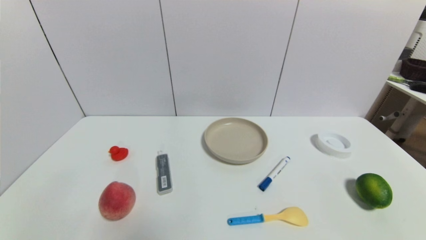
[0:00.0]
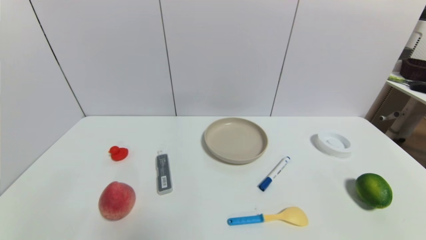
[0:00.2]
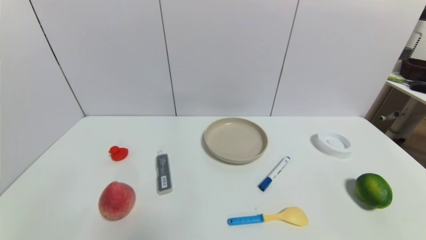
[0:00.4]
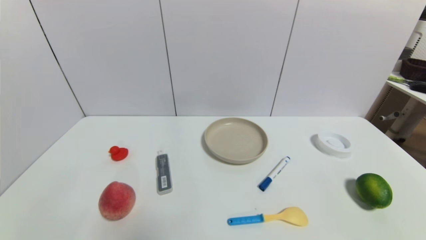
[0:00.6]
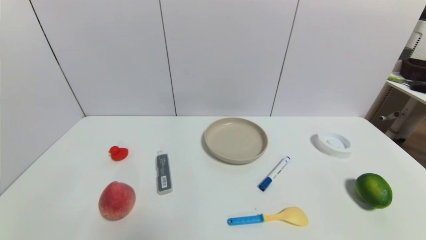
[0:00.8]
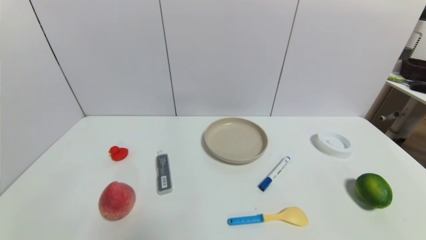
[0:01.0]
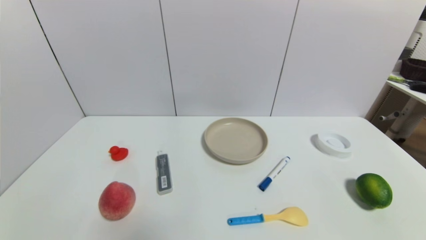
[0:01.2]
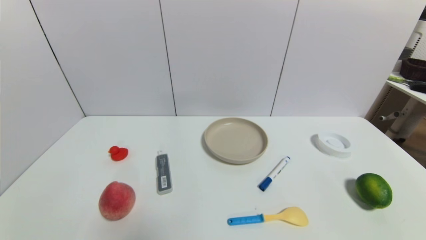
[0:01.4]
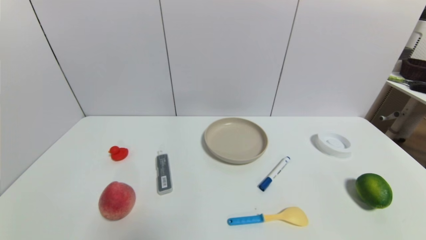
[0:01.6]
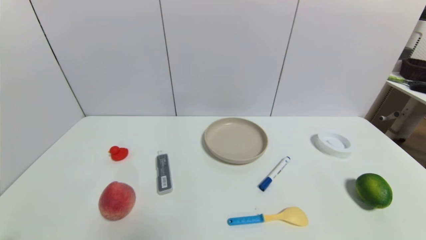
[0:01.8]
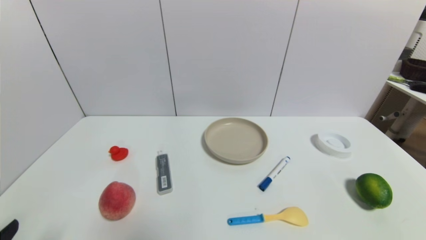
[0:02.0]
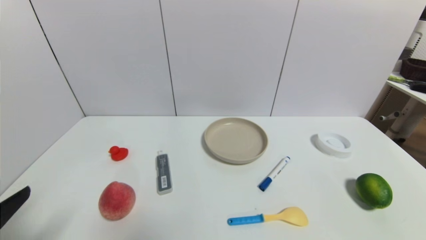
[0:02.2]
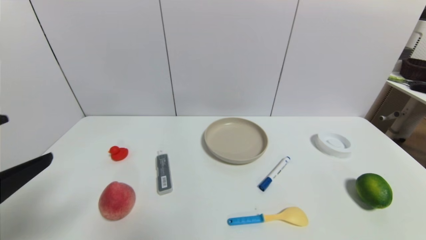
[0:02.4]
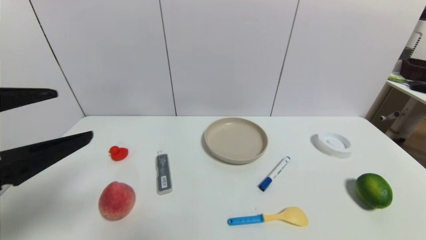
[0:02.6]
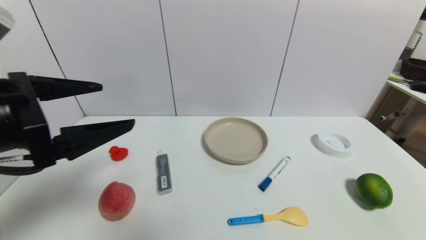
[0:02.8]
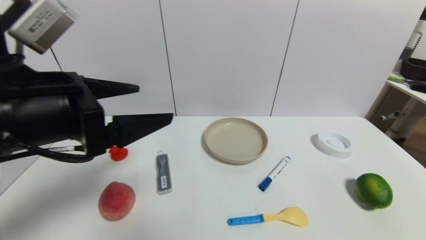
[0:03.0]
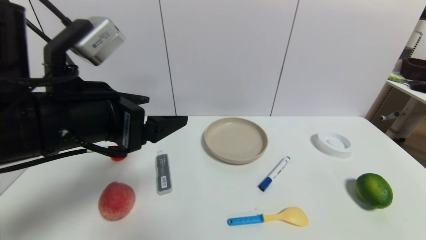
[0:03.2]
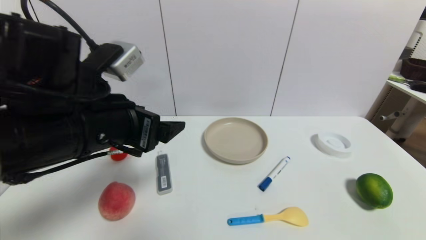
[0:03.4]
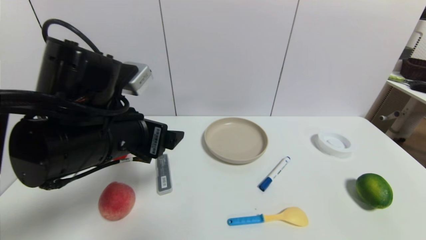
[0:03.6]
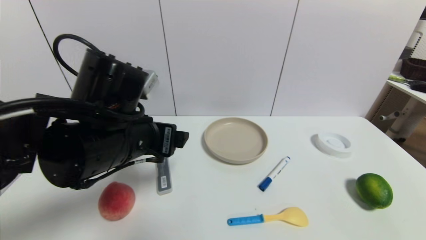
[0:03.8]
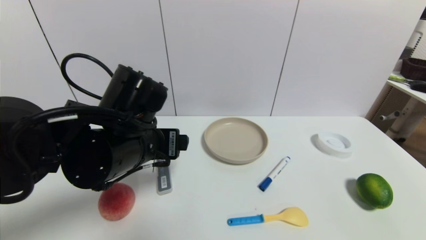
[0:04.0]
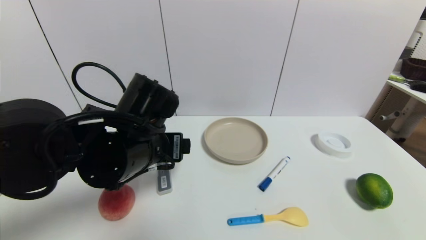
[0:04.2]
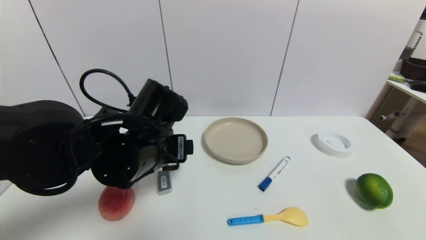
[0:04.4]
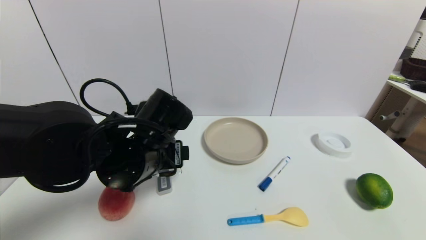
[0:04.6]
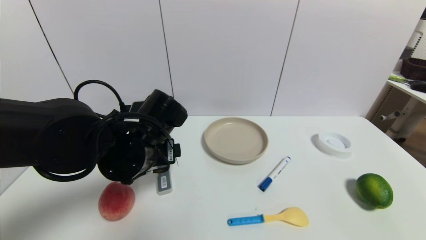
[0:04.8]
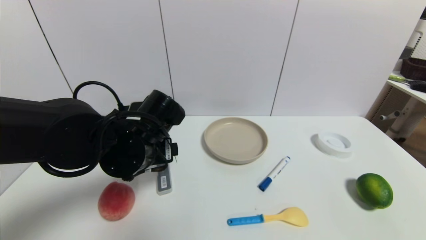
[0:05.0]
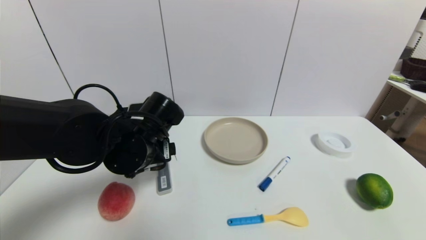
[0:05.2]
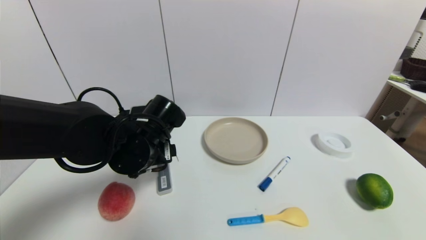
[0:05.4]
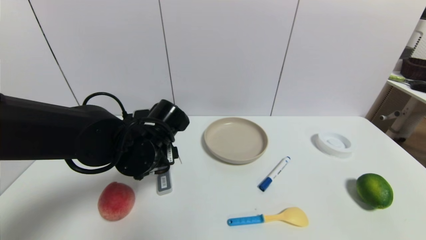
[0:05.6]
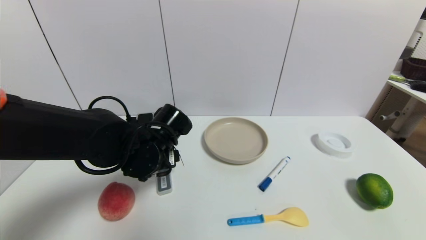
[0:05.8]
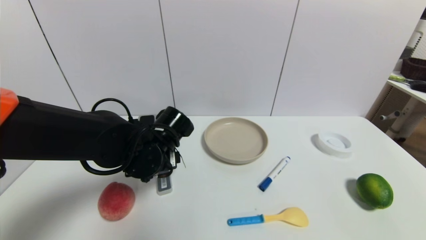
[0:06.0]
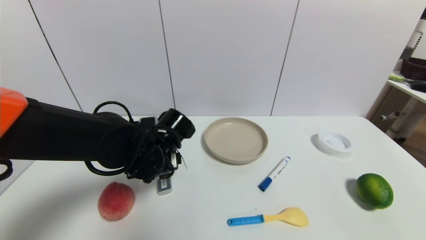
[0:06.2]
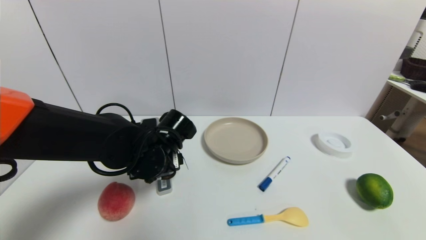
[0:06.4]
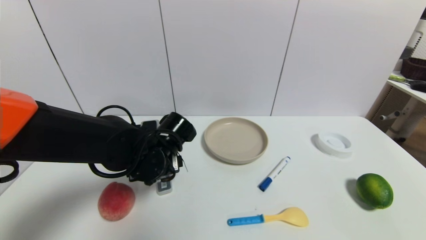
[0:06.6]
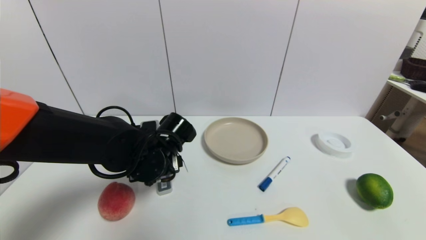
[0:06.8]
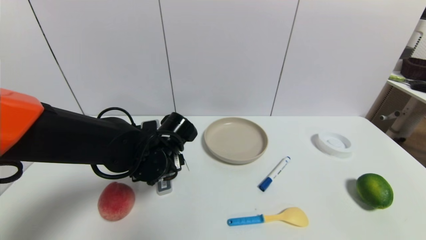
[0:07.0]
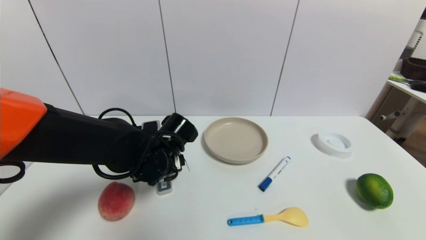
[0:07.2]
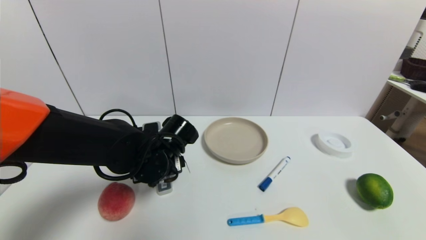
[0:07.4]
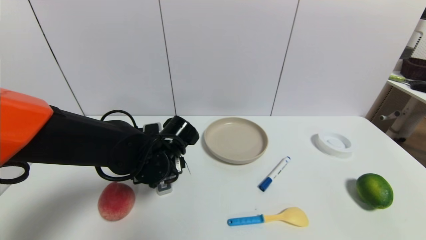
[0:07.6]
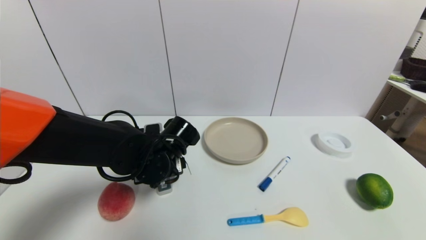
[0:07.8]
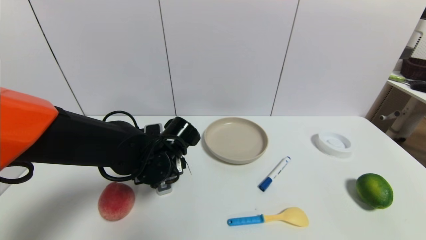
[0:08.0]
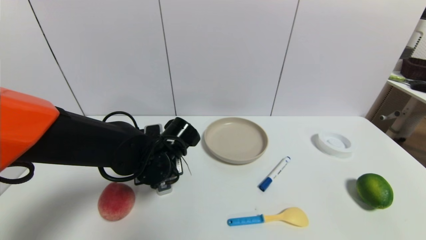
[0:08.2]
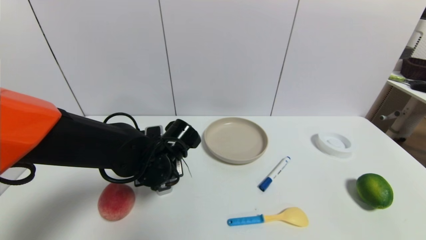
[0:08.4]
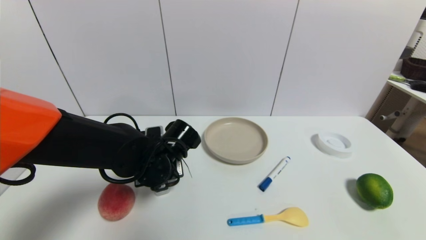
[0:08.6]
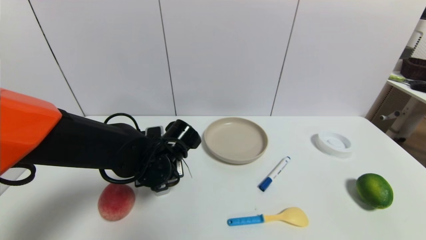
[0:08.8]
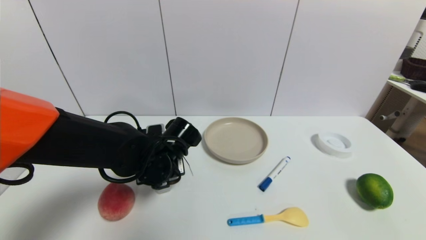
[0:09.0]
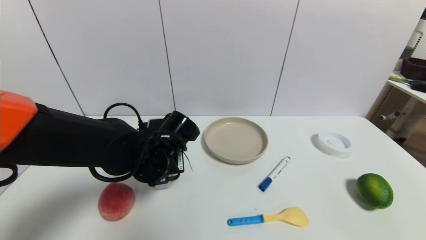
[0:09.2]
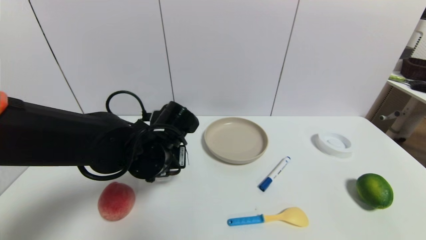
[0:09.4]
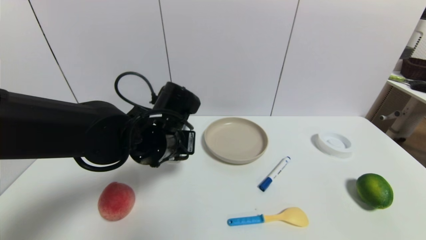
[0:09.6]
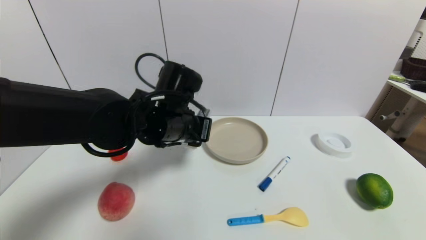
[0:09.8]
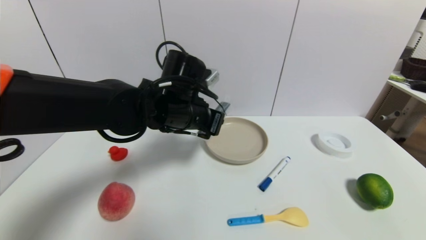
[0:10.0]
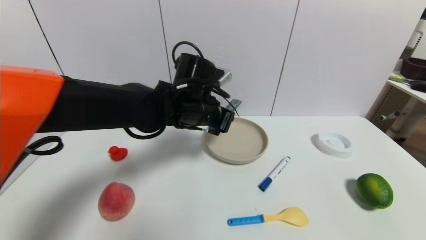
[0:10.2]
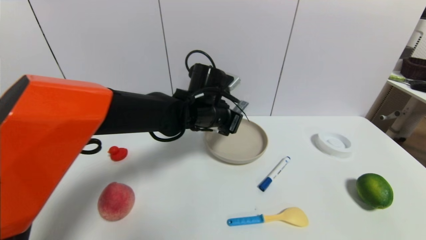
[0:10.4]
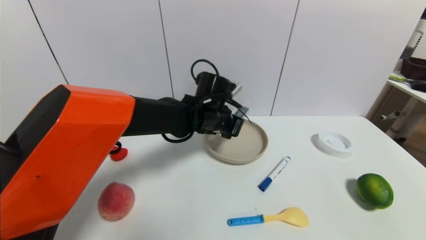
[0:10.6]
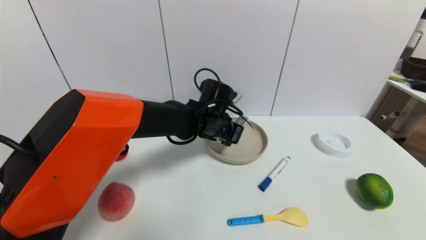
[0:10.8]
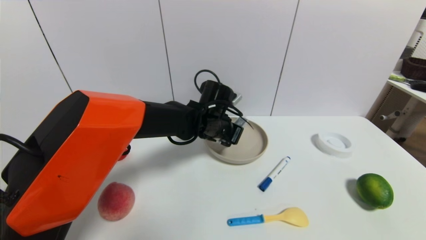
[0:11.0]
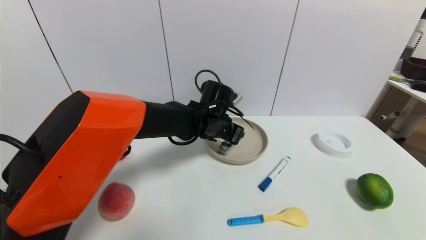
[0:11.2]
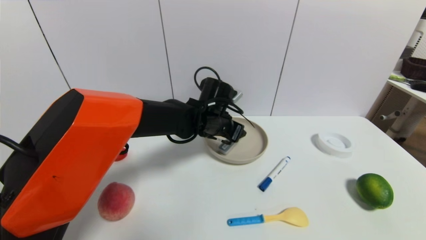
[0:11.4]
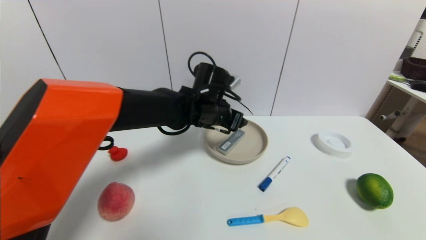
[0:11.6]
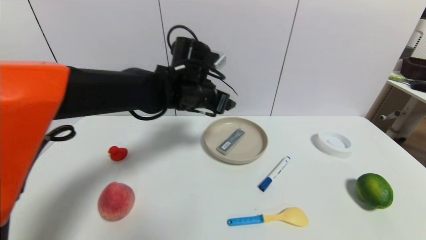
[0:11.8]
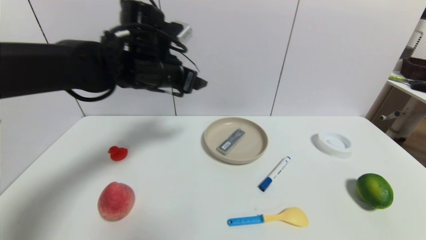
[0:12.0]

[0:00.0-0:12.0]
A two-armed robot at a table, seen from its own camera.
Task of the whole recording: use a gripper to pick the target object and place on the brown plate.
Step, 0:00.0 to 0:08.8: Grasp the compasses with the left gripper.
Step, 0:09.0 to 0:11.4: Place the compasses on the brown plate with the left gripper.
0:01.6 to 0:03.0: The left gripper heads upward, forward and to the right, covering roughly 30 cm.
0:03.0 to 0:04.4: The left gripper moves downward, to the right and forward, approximately 15 cm.
0:04.4 to 0:06.0: The left gripper travels downward by approximately 5 cm.
0:06.0 to 0:07.6: The grippers stay close to where they were, moving slightly.
0:07.6 to 0:09.0: The left gripper closes up.
0:09.0 to 0:10.4: The left gripper heads to the right, forward and upward, covering about 15 cm.
0:10.4 to 0:12.0: The left gripper travels to the left and upward by roughly 15 cm, and opens.

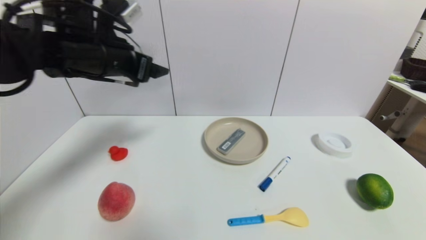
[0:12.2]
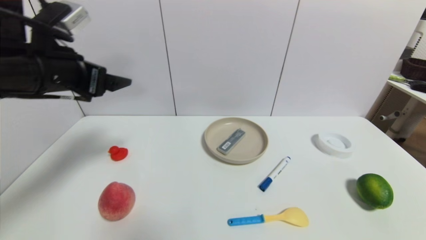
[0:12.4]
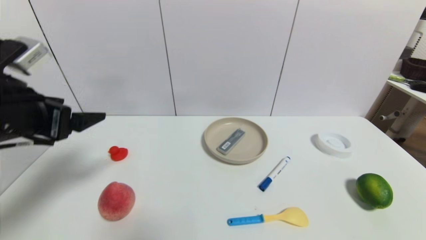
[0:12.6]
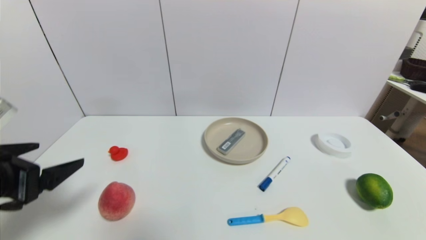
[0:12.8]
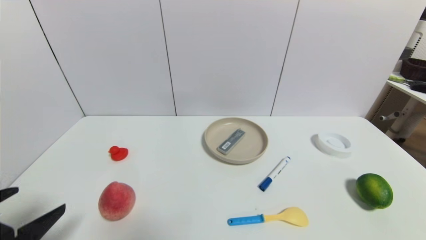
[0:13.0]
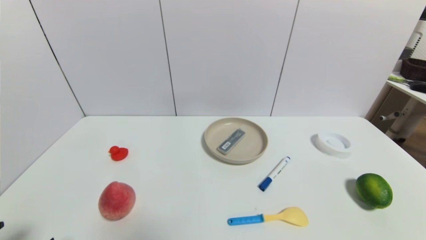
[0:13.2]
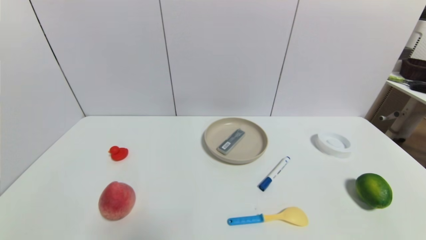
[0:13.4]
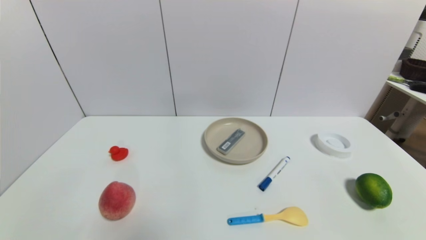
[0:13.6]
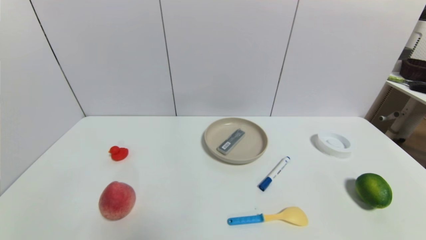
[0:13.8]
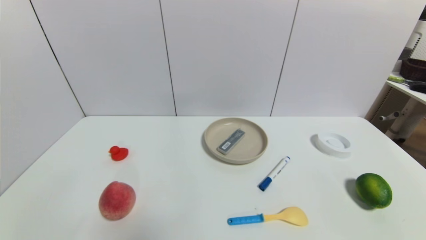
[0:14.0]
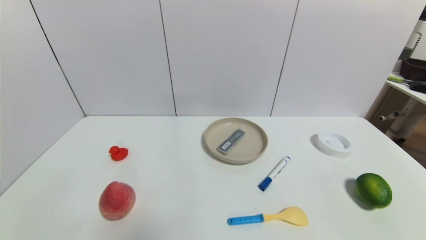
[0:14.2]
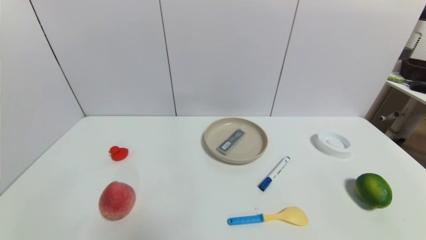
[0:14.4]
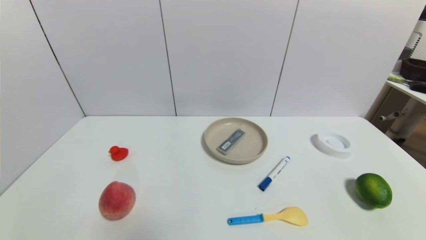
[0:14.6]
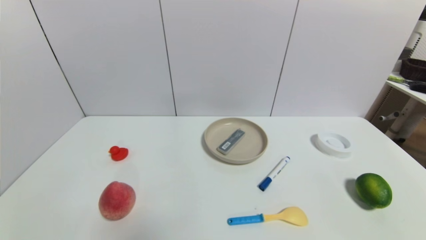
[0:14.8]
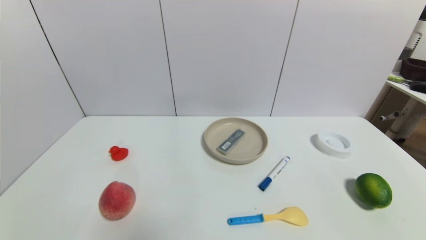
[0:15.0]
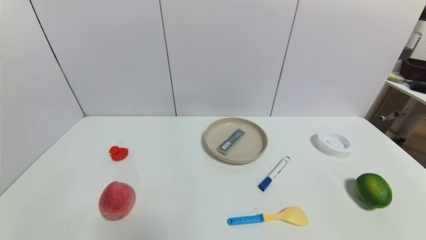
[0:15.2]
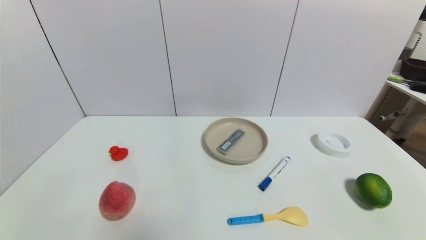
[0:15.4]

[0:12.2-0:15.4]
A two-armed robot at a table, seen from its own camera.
Task of the whole recording: use a gripper to pick the target object and place on the brown plate.
0:12.2 to 0:13.8: The left gripper shifts some 40 cm backward and downward.
